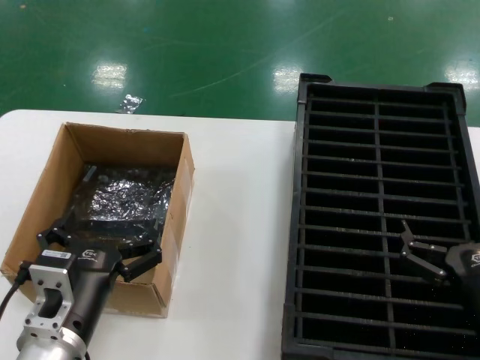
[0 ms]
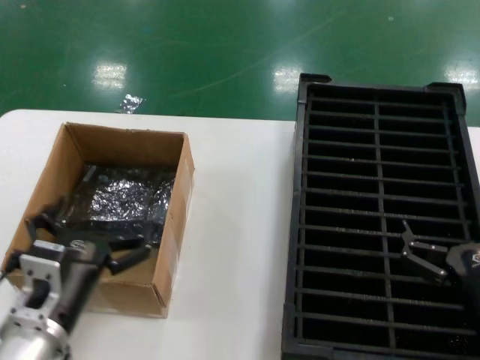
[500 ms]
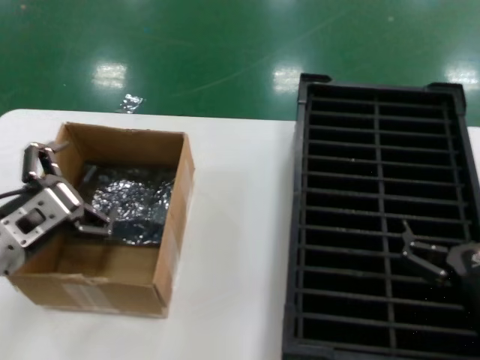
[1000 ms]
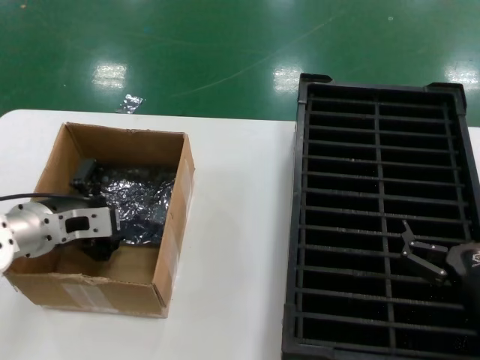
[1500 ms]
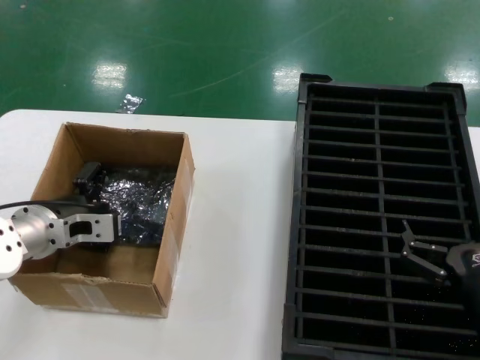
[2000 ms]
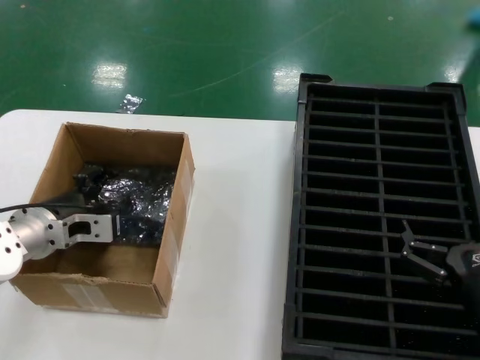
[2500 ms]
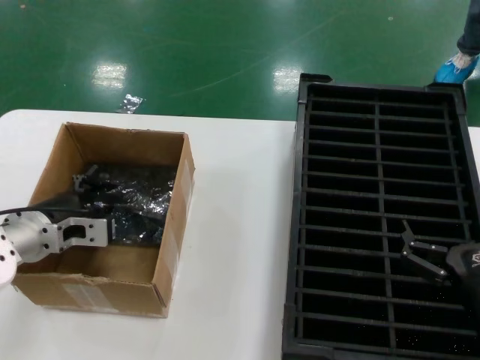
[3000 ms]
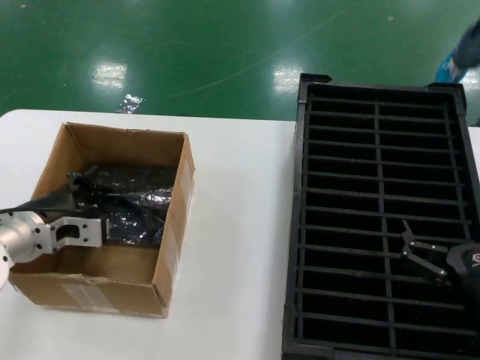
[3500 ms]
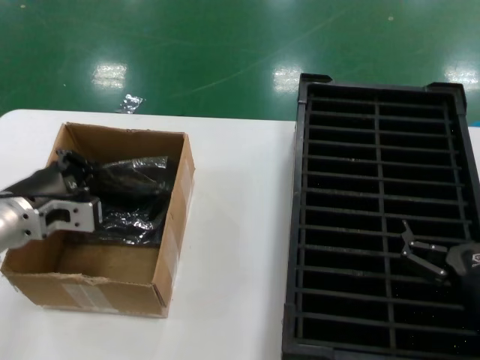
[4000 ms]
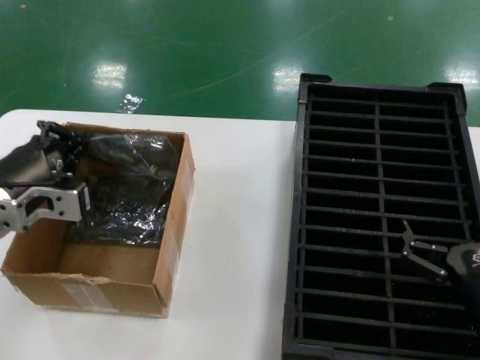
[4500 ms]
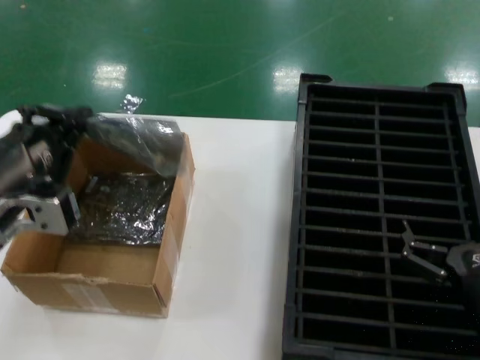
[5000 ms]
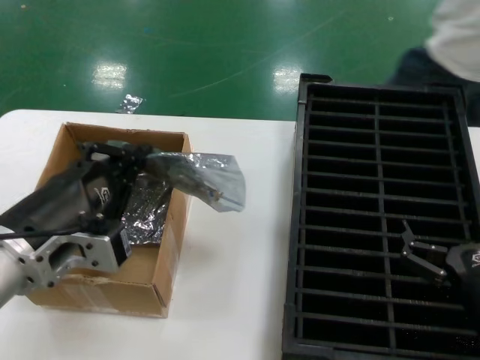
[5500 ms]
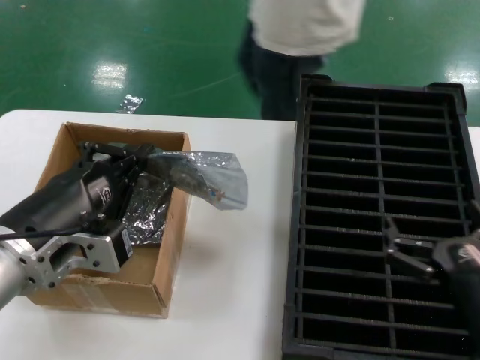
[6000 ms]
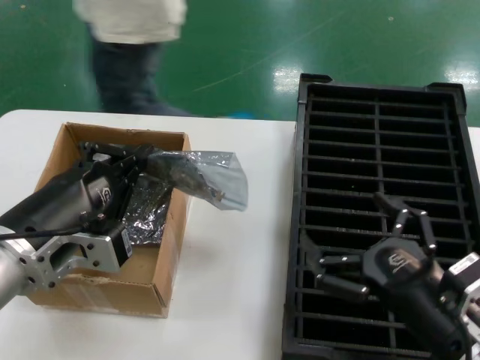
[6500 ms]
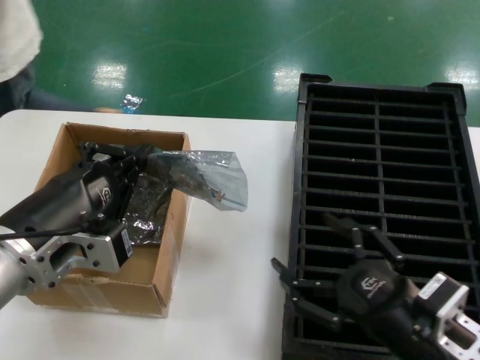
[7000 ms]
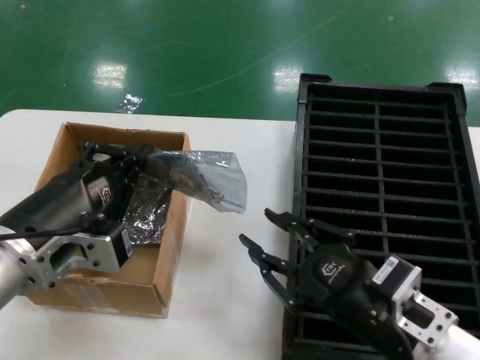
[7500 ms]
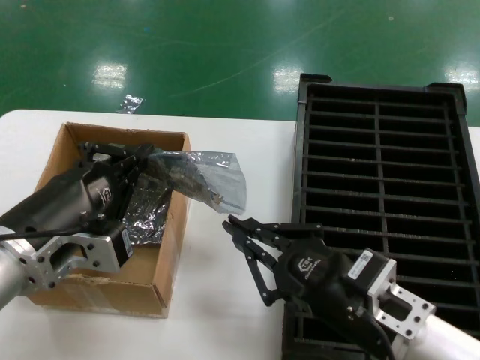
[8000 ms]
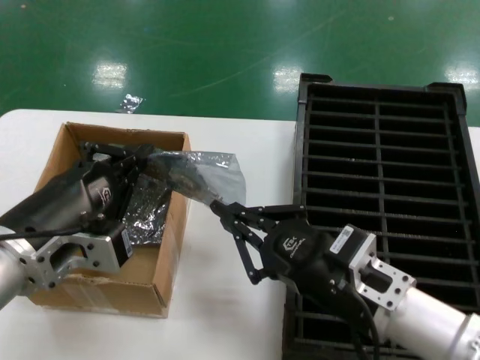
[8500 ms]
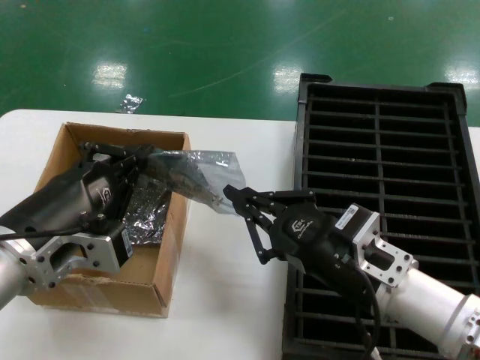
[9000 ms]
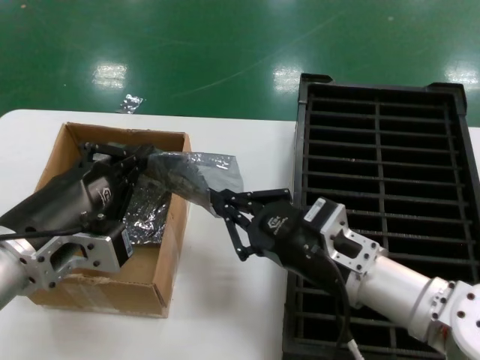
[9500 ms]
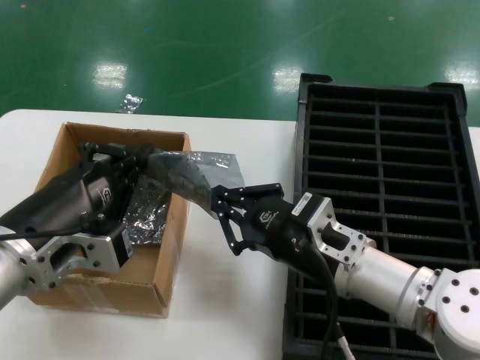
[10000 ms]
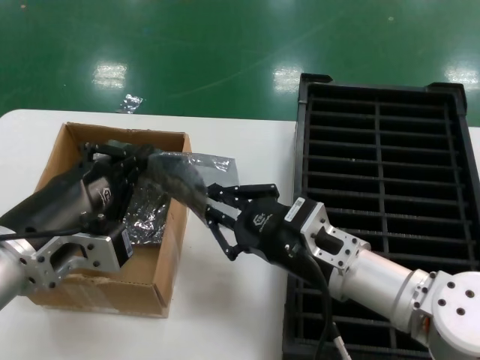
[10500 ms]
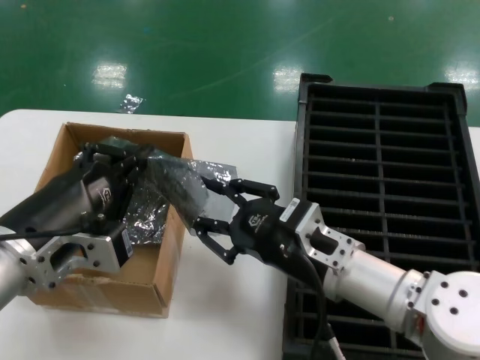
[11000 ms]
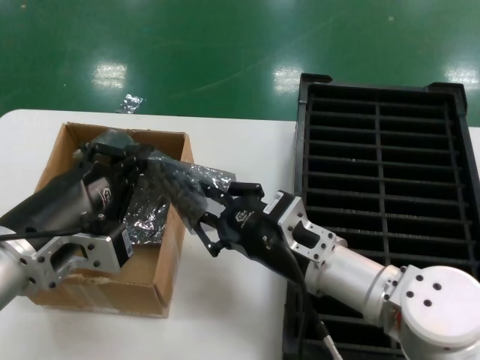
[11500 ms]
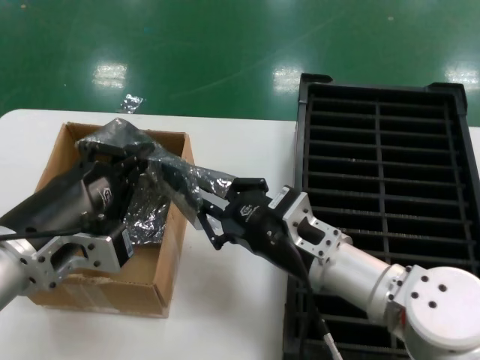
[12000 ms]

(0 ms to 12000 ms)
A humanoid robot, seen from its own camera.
Task of the whole recording: take out graphics card from box remove packaging put into black container.
Step, 0 ms - 3000 ms: Grasp the bag.
Step, 3500 ms - 5500 ms: Lift the bag.
0 ms - 2000 ms: The left hand heads forward, to the left and upward, covering approximately 20 cm.
2000 ms - 4000 ms: The hands make only small movements.
4000 ms - 6000 ms: The left hand moves backward and to the right, about 15 cm.
6000 ms - 8000 ms: The right hand moves to the left and upward, approximately 10 cm.
8000 ms - 10000 ms: The right hand shifts approximately 10 cm forward.
10000 ms - 12000 ms: The hands make only small movements.

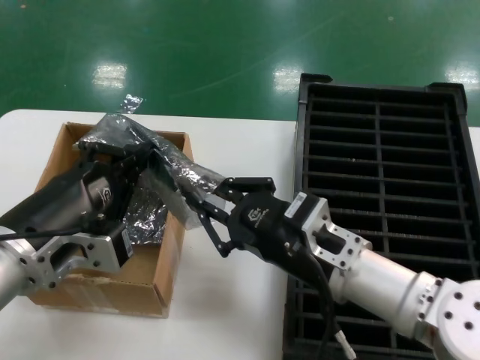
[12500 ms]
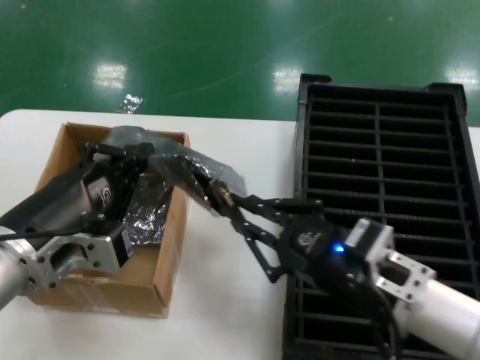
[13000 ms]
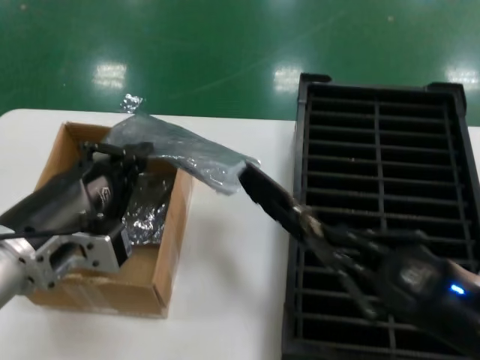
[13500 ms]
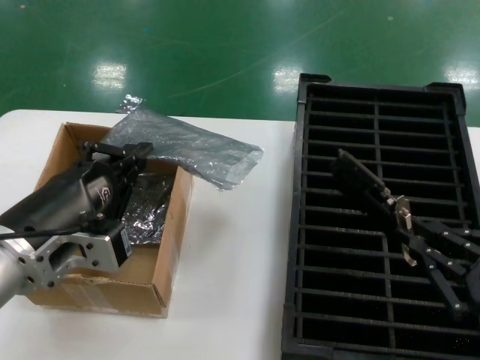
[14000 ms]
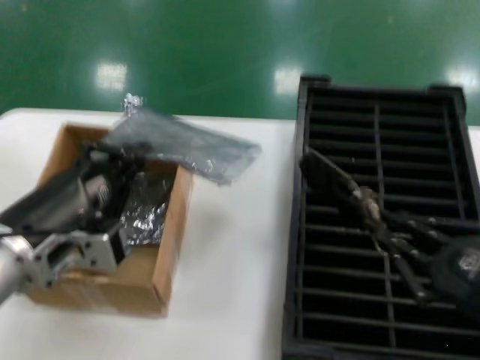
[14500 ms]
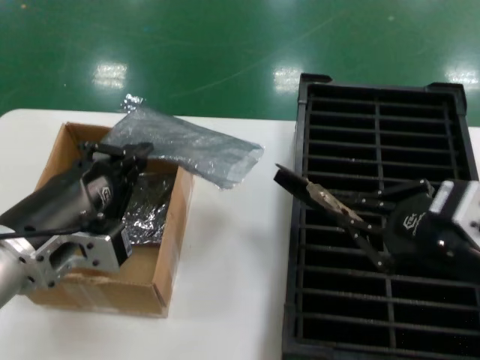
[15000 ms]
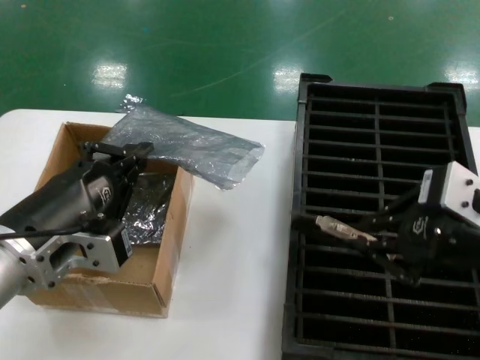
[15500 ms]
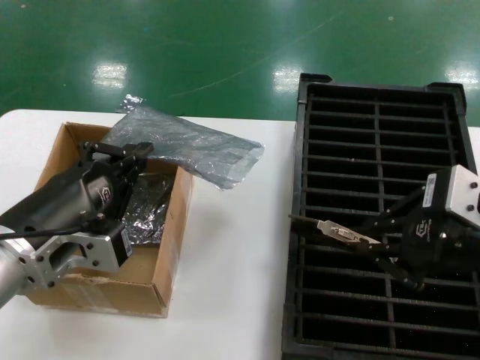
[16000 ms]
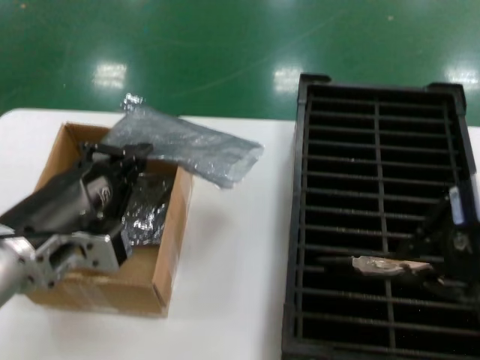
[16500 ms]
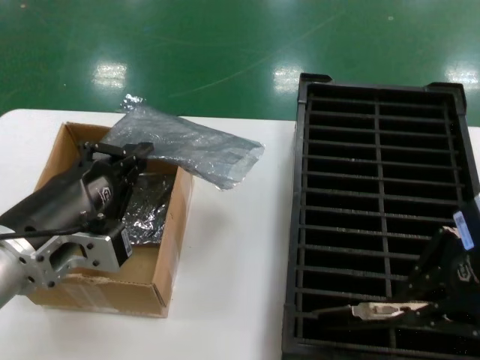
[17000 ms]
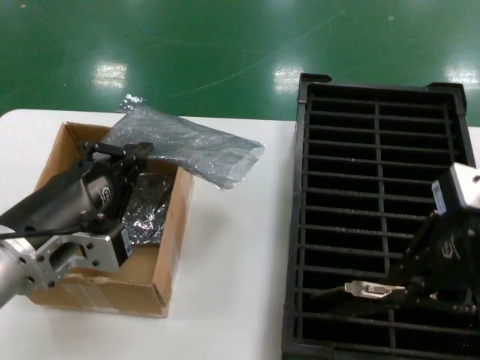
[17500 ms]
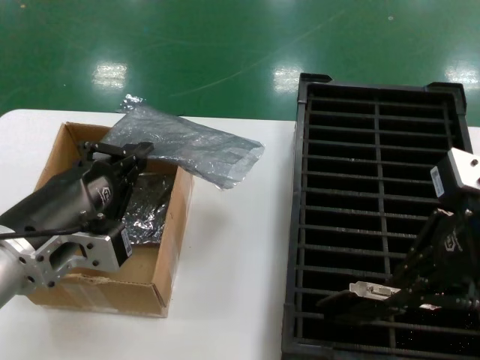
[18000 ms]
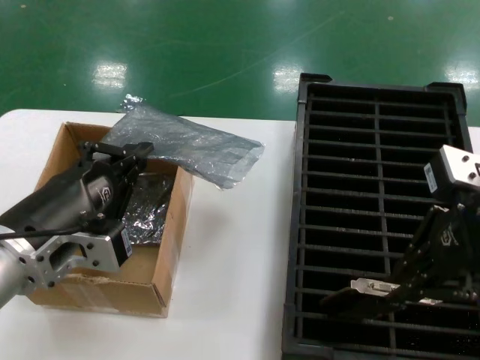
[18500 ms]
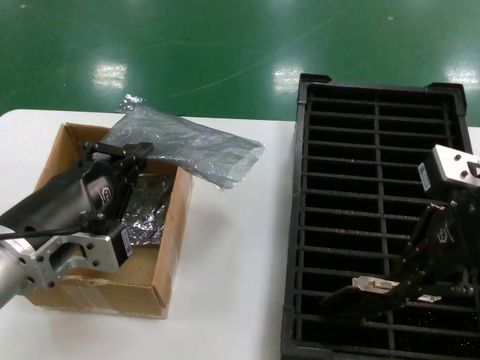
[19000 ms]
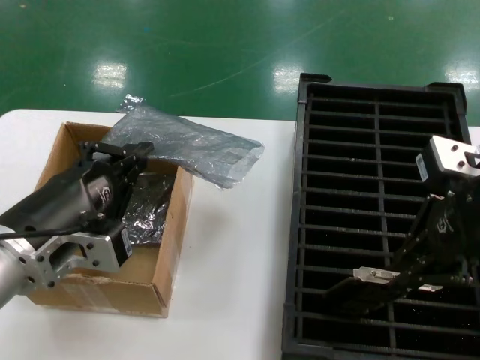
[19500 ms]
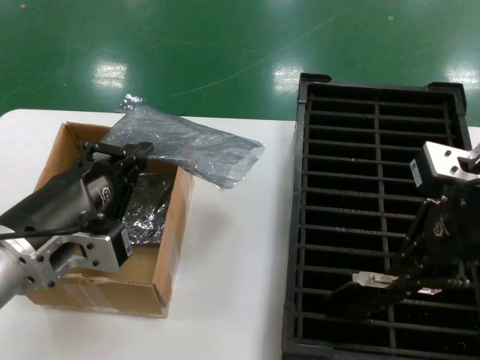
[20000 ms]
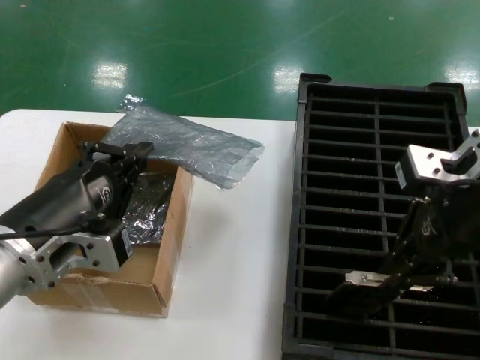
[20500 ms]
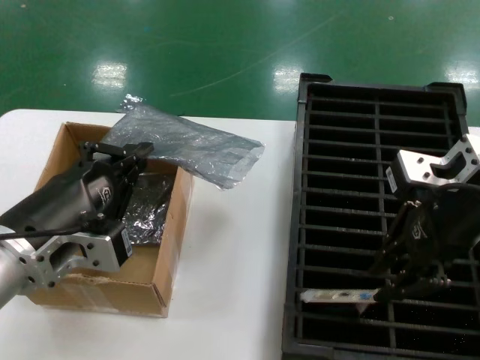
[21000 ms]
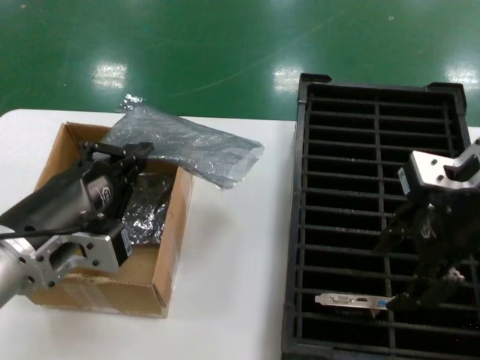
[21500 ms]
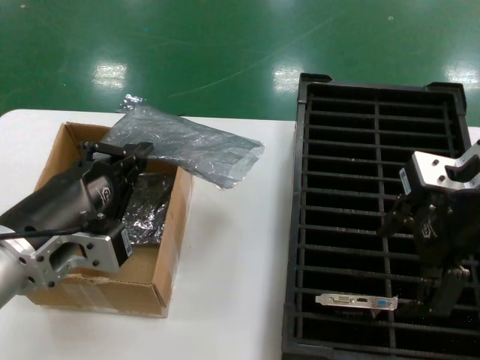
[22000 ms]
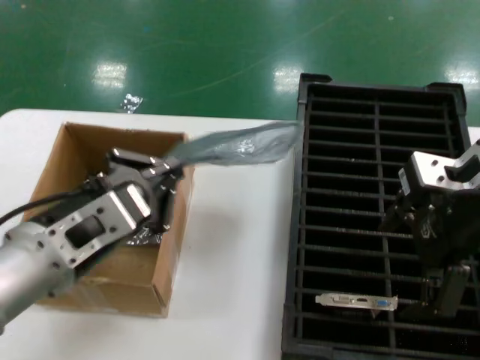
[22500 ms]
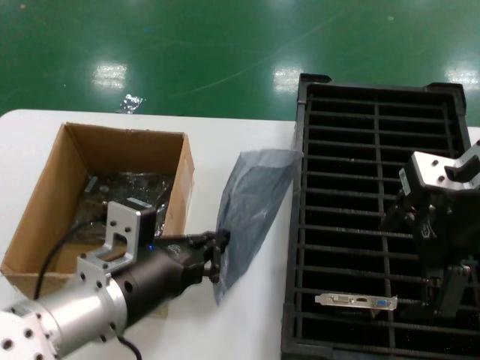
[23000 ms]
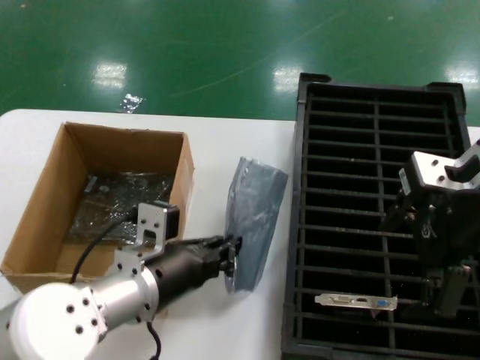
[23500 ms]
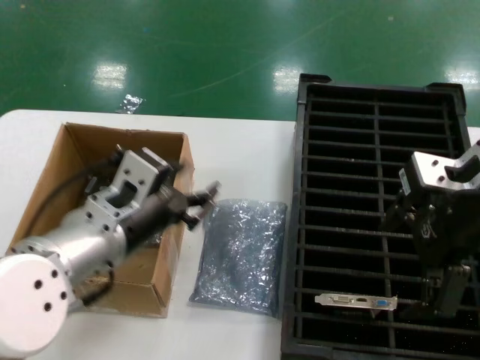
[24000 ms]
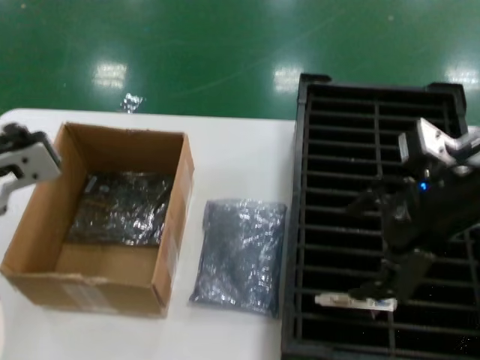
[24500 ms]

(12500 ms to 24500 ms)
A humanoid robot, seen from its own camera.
Task of the whole recording: take out graphics card from box remove packaging put into black container.
Step, 14000 ms - 21000 ms: Place the hard disk in the hard disk enclosure.
Step, 21500 ms - 23500 ms: Place the down the bag.
12500 ms - 14500 ms: The right hand moves to the right and backward, some 25 cm.
14500 ms - 16500 ms: The right hand heads upward, covering approximately 15 cm.
16500 ms - 18500 ms: The right hand shifts approximately 5 cm forward.
18500 ms - 20500 ms: The hands stay close to where they were, moving slightly.
22500 ms - 24500 ms: The left hand moves some 10 cm downward and comes back.

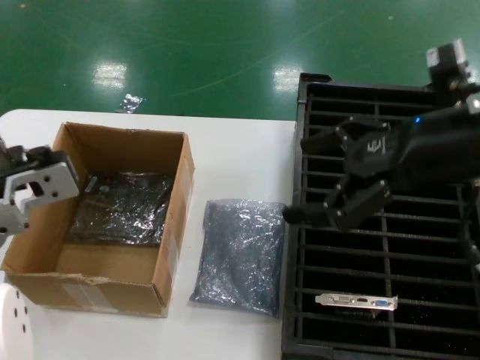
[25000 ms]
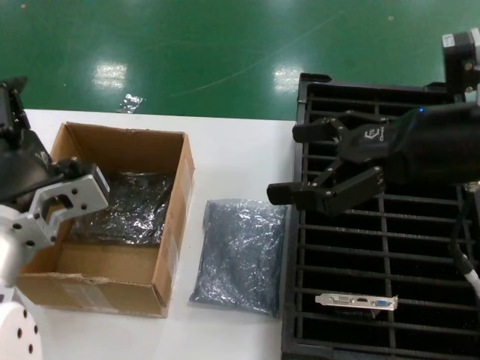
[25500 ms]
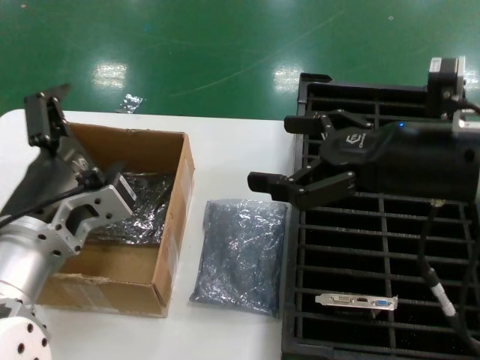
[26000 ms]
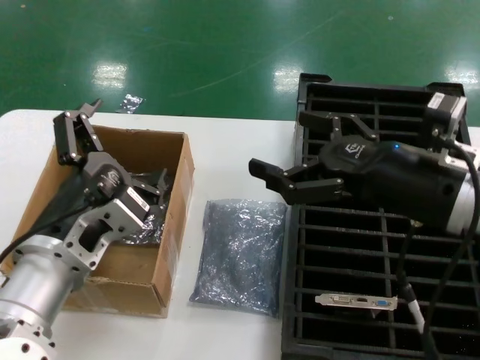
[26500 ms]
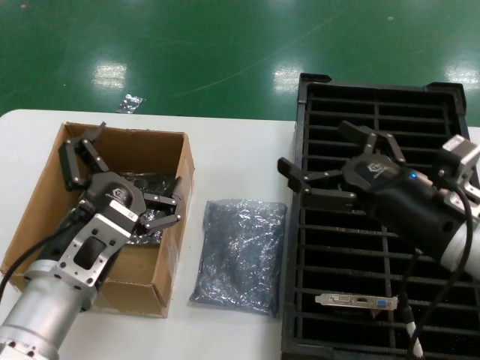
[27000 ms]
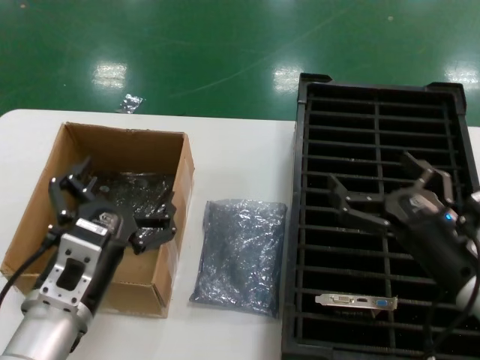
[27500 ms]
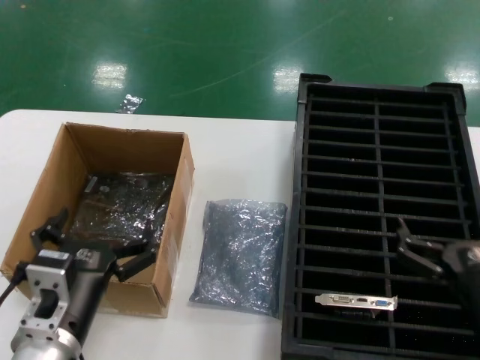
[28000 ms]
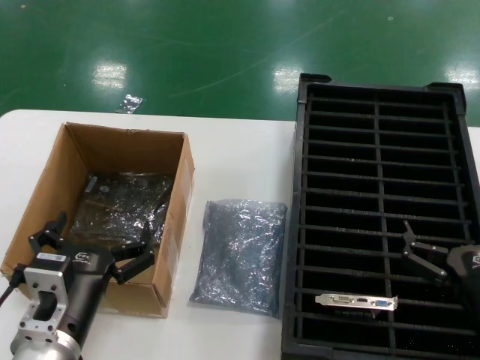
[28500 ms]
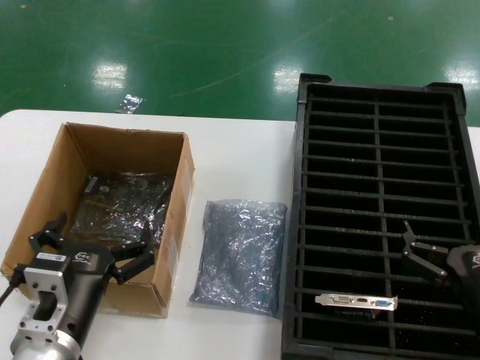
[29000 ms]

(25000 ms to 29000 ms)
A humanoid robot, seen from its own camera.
Task of the whole recording: take out graphics card from box remove packaging put into black container.
25000 ms - 27000 ms: The left hand travels downward by approximately 10 cm. Meanwhile the right hand shifts some 15 cm downward.
27000 ms - 29000 ms: The right hand heads downward and backward, covering some 15 cm; the left hand is displaced downward by about 10 cm.
